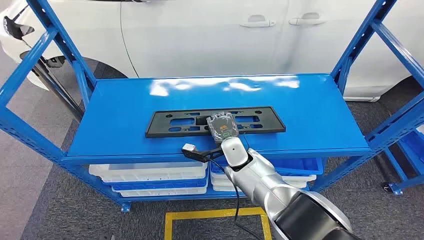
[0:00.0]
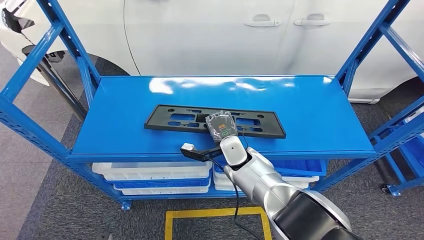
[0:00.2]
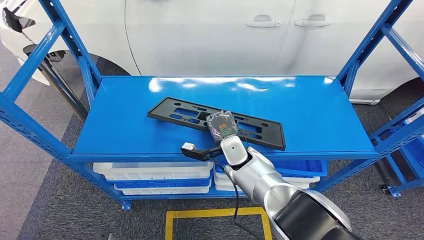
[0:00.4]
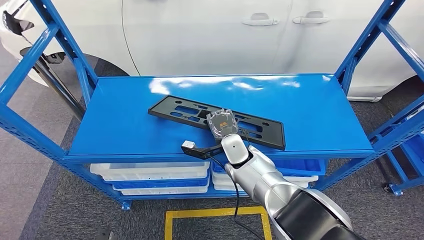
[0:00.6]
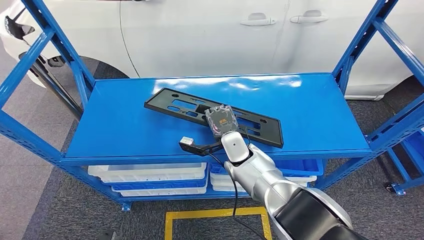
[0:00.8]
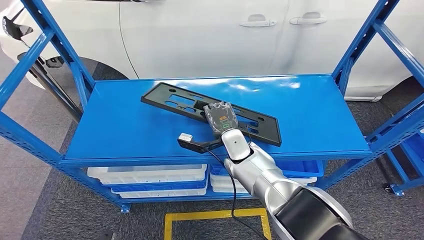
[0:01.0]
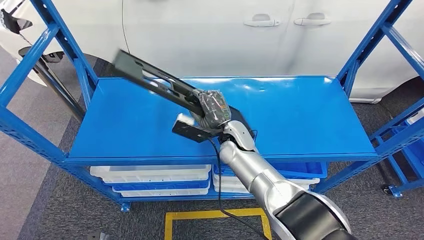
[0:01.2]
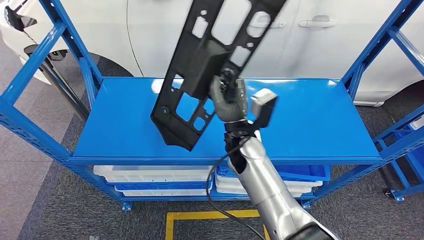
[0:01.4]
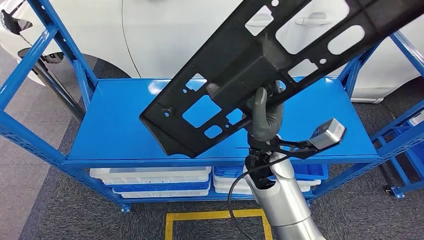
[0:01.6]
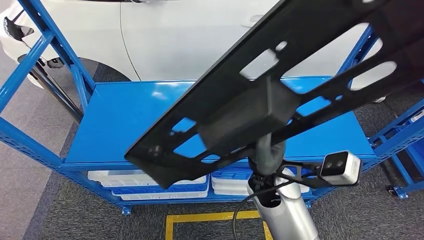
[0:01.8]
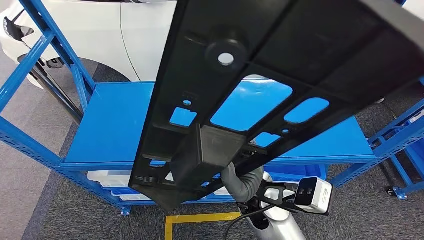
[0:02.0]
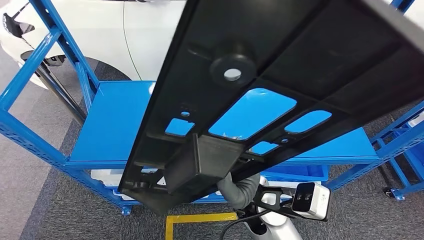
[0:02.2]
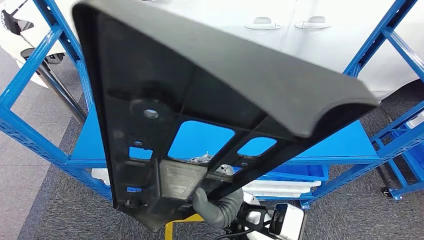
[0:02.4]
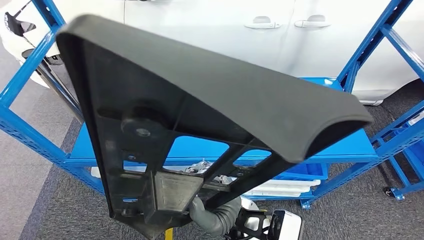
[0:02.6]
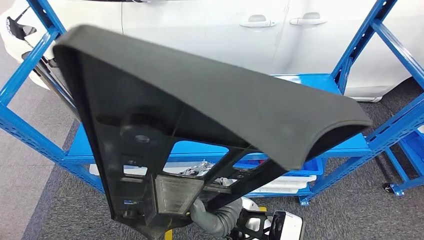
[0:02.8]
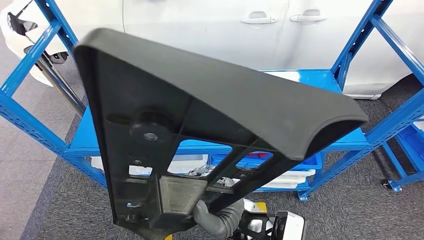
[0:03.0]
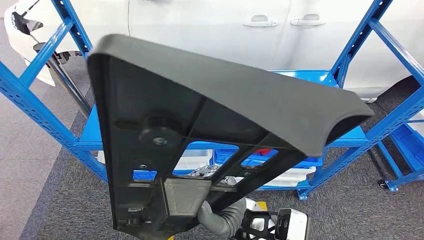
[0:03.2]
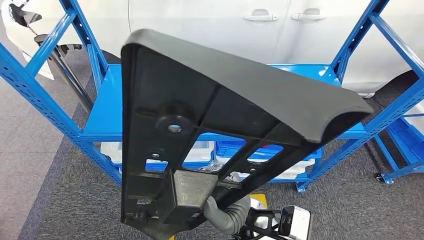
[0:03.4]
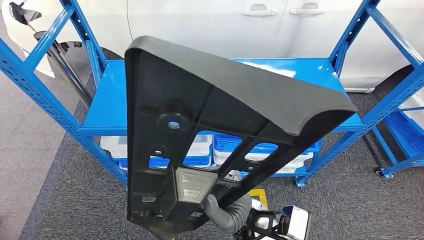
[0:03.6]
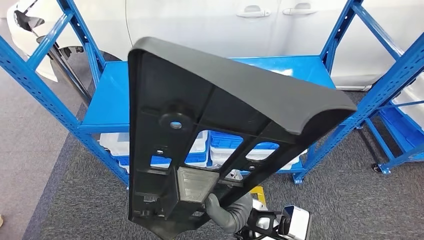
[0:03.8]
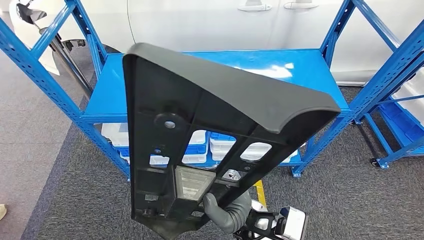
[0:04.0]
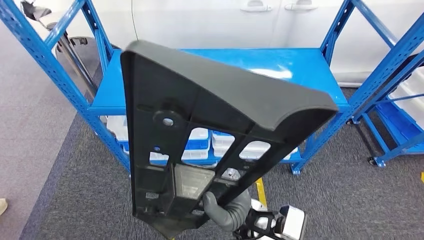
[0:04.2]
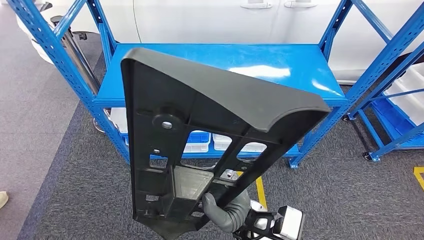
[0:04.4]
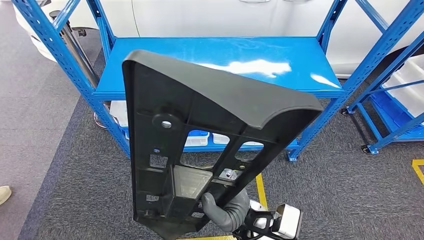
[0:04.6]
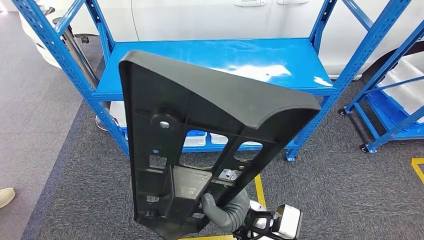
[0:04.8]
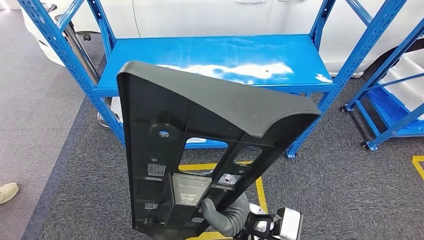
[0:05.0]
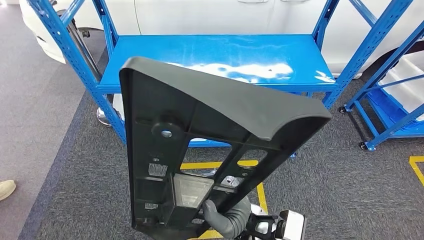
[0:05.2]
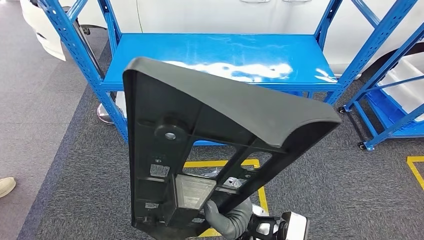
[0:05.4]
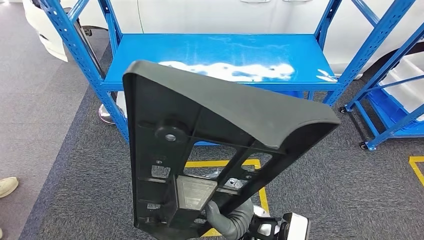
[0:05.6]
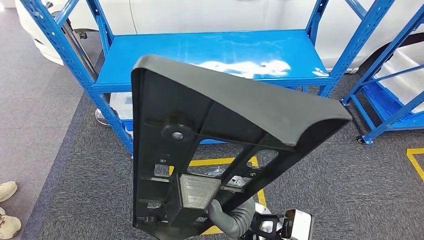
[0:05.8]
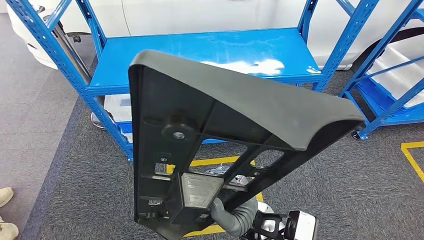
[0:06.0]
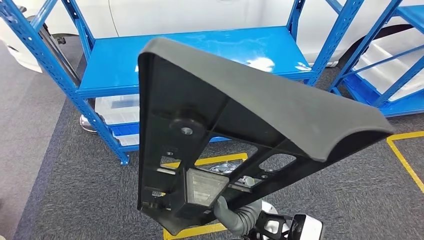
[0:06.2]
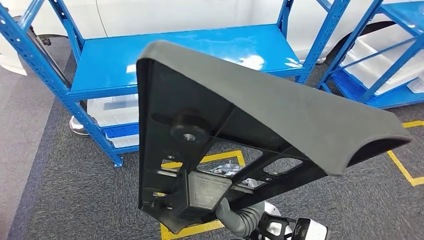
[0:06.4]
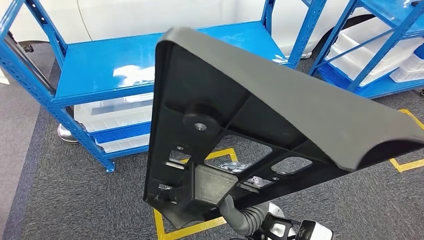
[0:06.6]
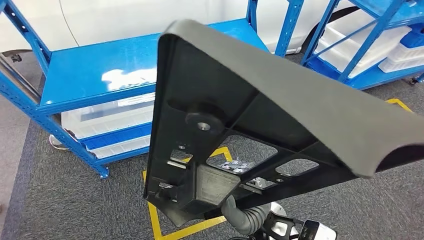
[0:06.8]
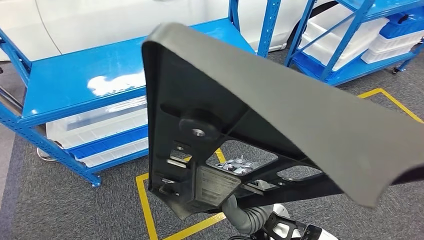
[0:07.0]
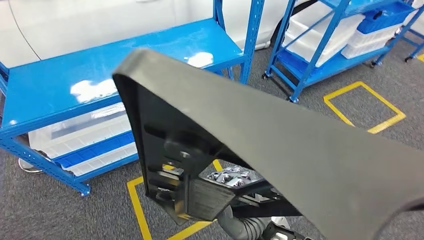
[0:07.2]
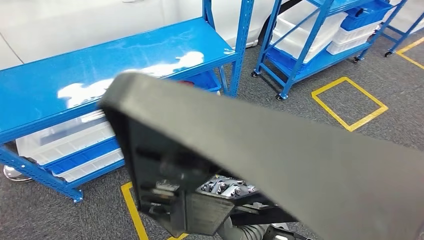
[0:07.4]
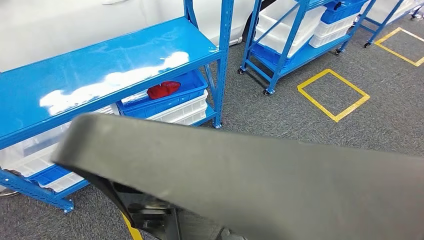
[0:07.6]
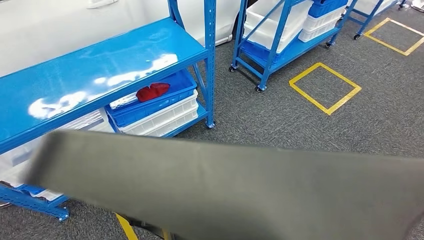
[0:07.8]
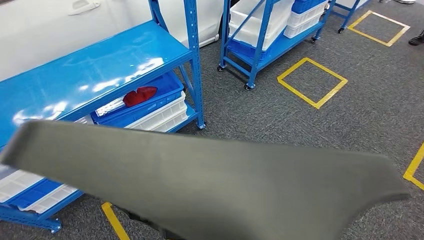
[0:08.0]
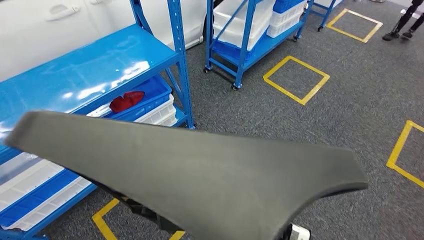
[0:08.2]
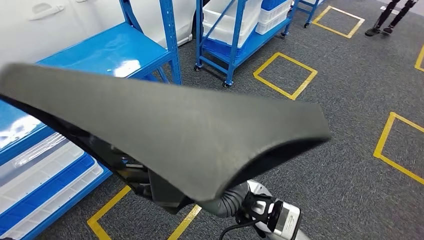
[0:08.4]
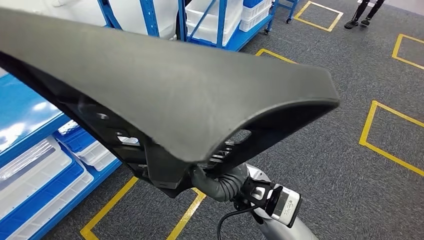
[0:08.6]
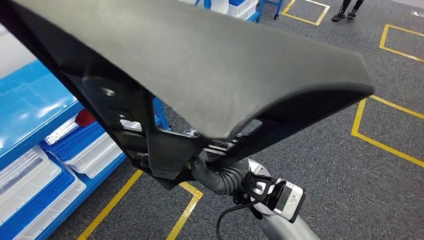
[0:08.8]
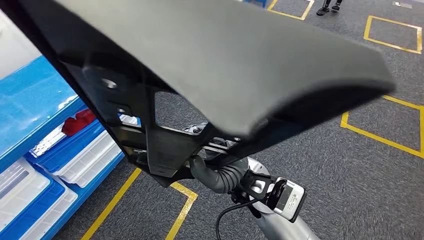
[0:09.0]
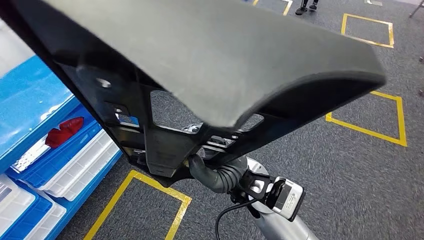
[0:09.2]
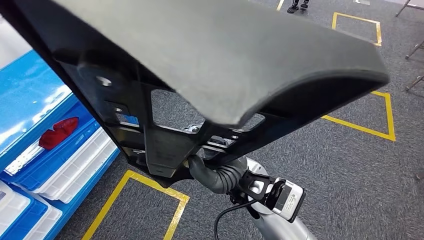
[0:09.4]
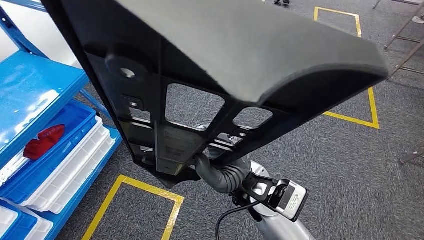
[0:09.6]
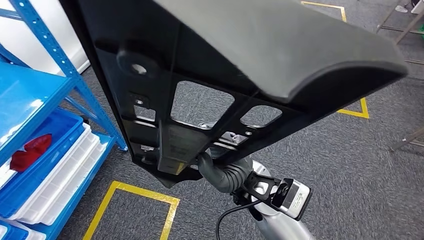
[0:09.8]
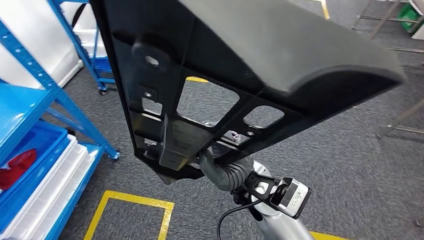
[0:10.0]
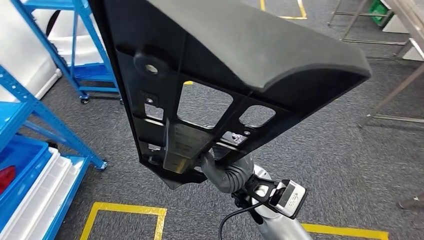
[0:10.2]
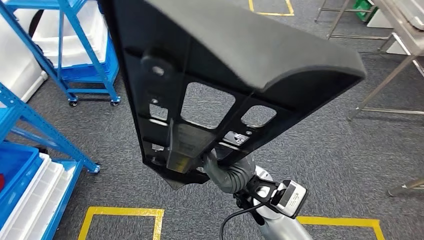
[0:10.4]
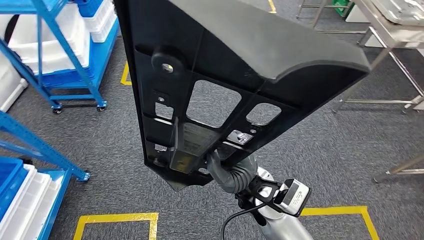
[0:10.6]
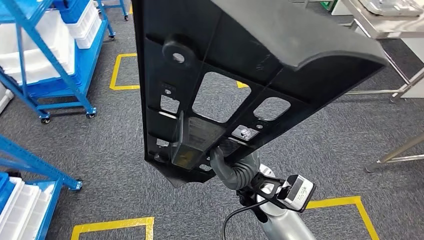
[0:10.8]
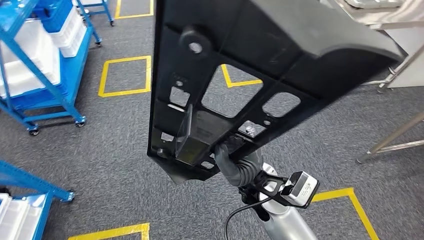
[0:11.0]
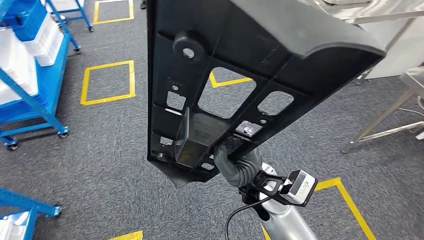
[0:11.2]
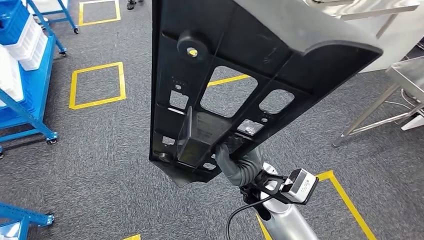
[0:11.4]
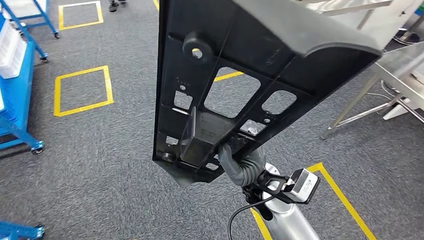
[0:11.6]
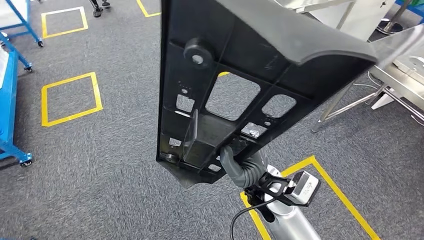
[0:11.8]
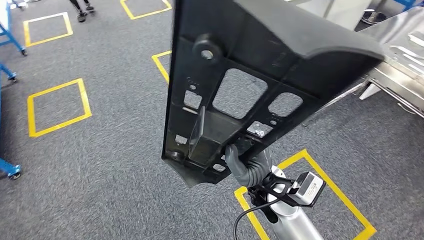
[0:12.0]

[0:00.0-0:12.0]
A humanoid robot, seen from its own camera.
Step, 0:00.0 to 0:02.0: Pick up the large material from the shelf.

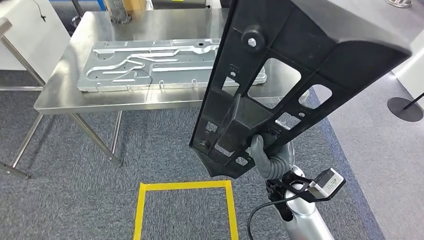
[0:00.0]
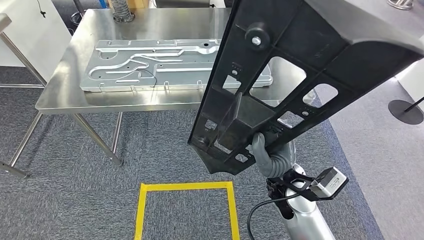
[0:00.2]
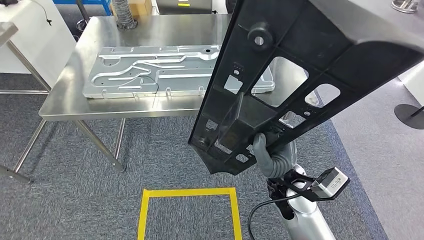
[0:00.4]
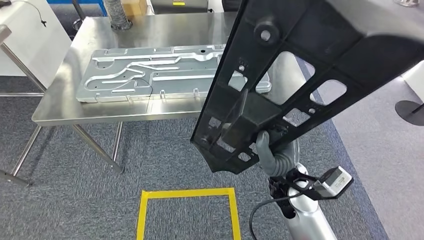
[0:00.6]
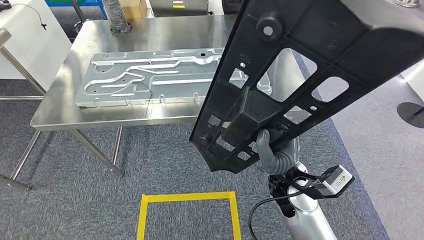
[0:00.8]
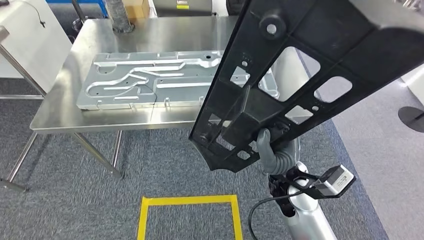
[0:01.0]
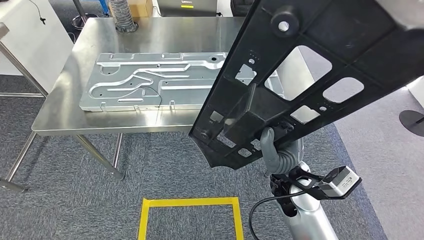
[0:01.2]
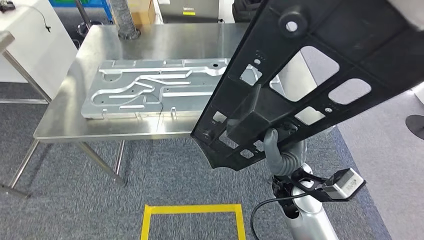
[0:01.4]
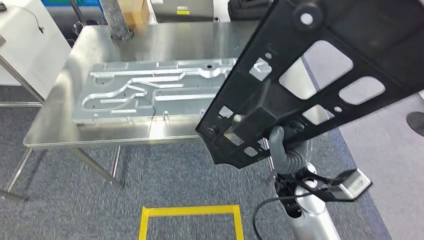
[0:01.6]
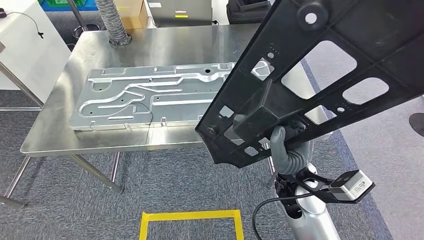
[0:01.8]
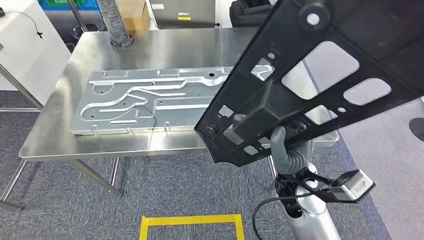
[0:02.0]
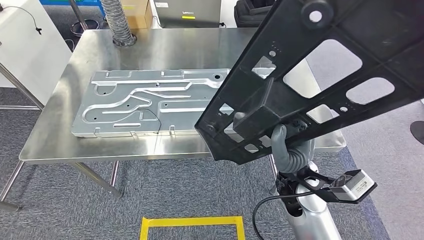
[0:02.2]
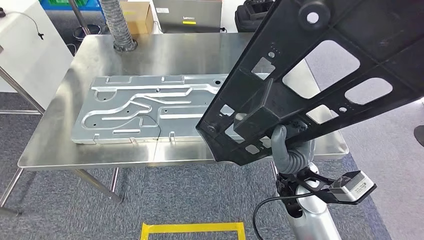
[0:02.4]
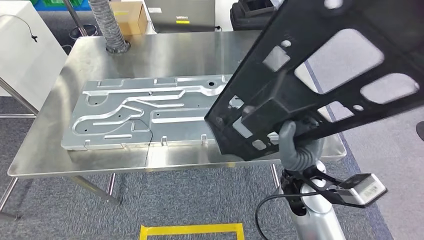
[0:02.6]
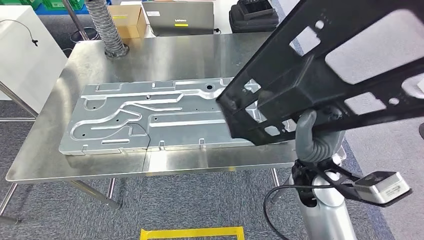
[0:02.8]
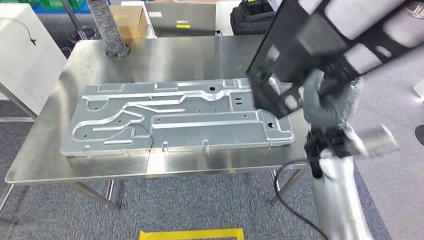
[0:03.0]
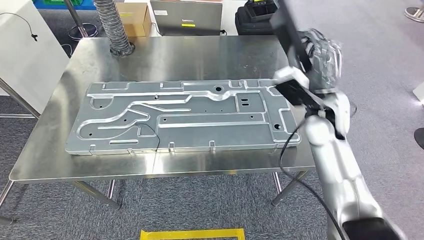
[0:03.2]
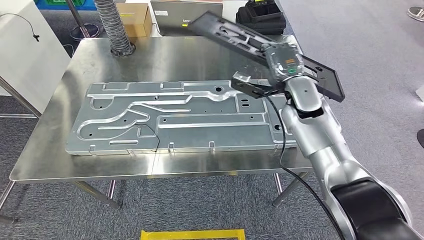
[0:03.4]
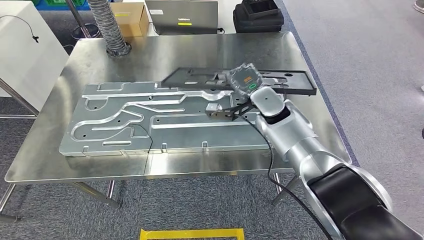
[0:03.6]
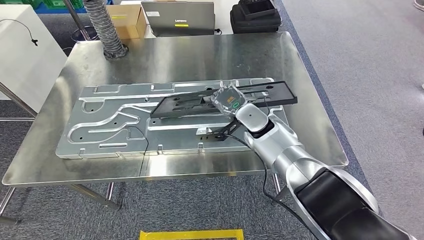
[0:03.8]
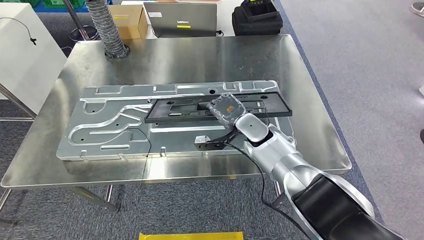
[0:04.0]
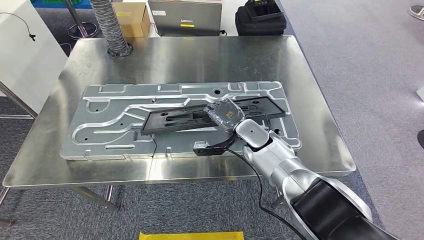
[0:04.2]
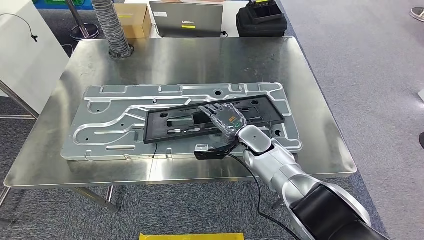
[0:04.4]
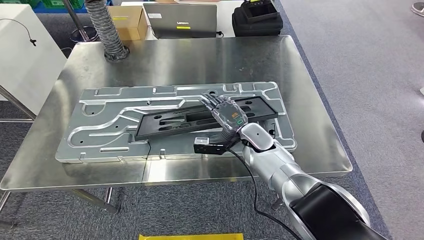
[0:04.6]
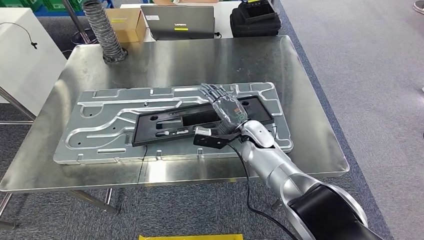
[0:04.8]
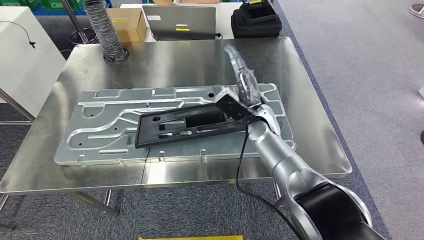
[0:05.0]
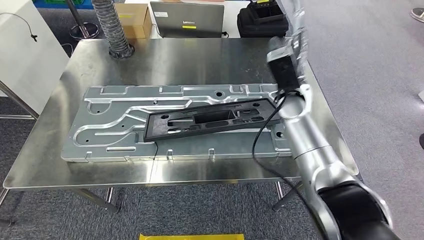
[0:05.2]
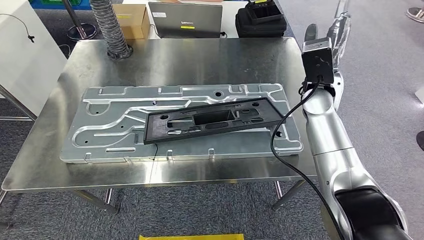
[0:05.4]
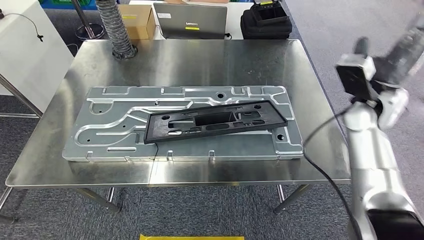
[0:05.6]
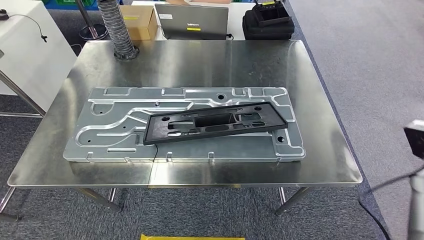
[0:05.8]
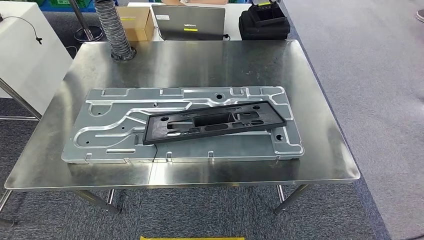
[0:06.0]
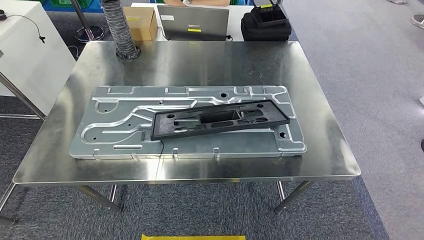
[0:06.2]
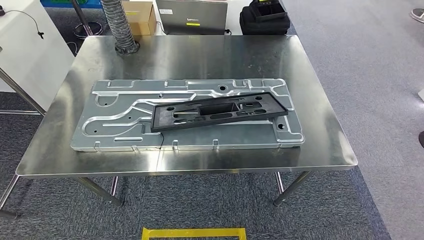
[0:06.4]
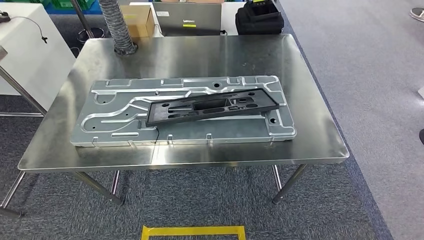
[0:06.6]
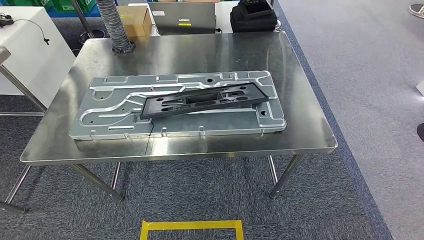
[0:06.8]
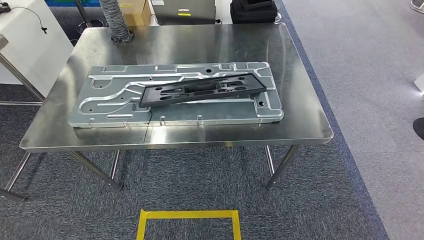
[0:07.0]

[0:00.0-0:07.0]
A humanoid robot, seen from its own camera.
Step, 0:00.0 to 0:03.0: Move the large material to the workbench.
Step, 0:03.2 to 0:06.0: Insert the large material into the corresponding slot on the workbench.
